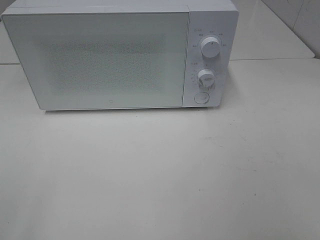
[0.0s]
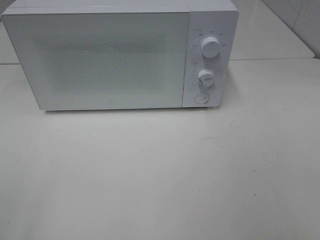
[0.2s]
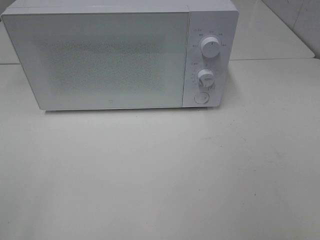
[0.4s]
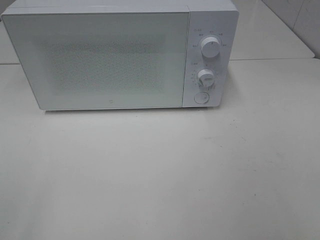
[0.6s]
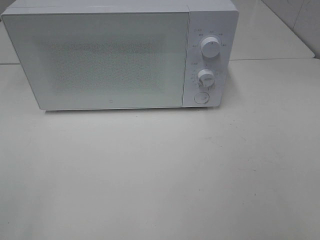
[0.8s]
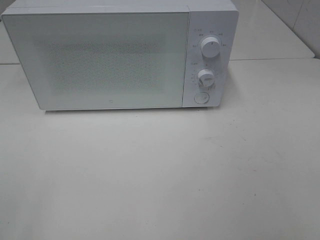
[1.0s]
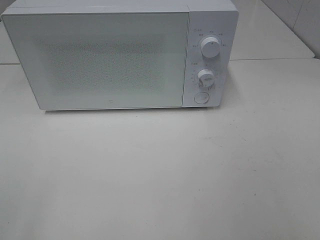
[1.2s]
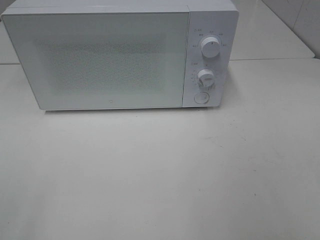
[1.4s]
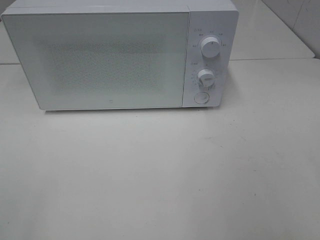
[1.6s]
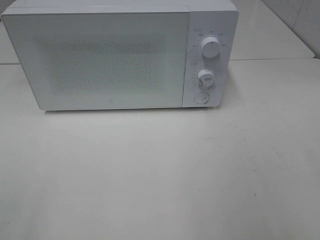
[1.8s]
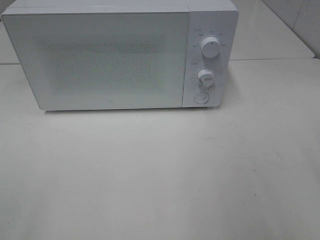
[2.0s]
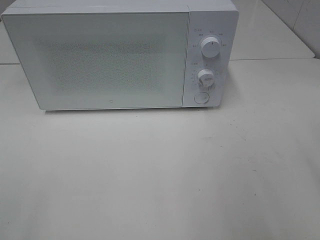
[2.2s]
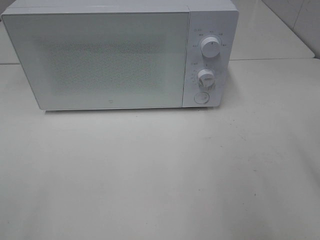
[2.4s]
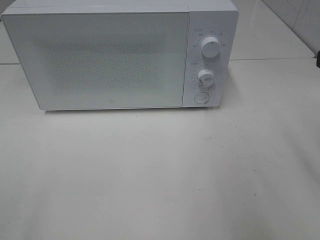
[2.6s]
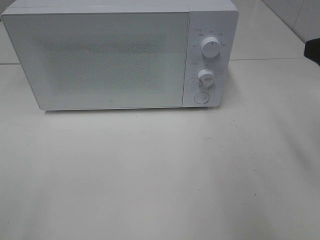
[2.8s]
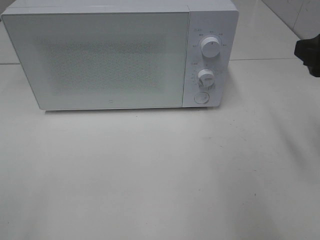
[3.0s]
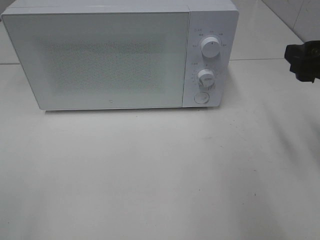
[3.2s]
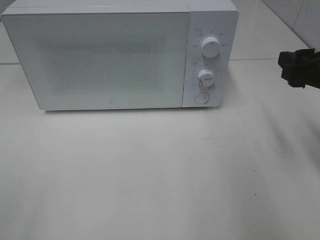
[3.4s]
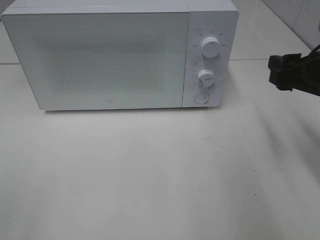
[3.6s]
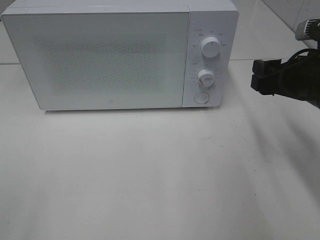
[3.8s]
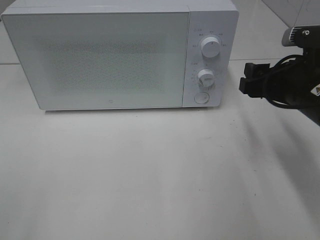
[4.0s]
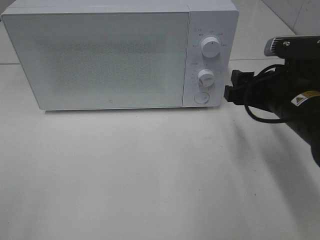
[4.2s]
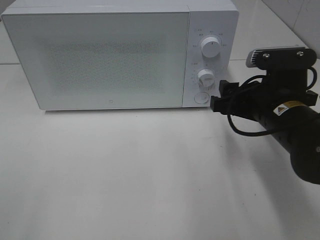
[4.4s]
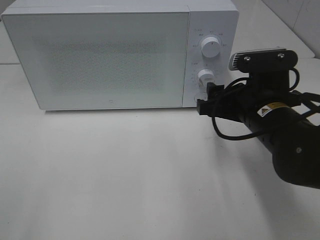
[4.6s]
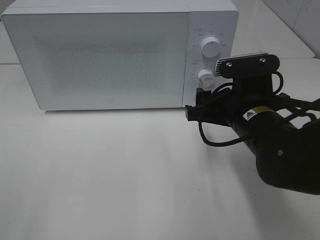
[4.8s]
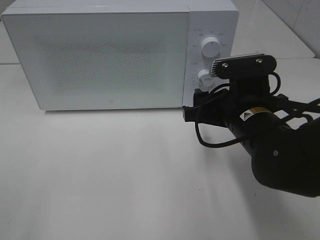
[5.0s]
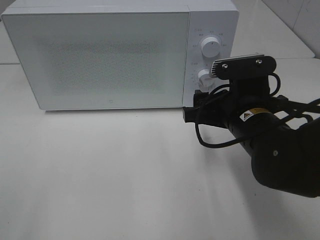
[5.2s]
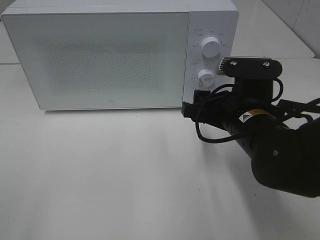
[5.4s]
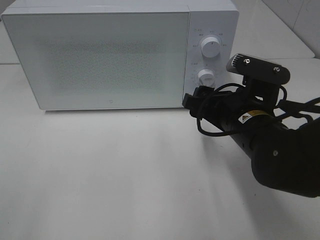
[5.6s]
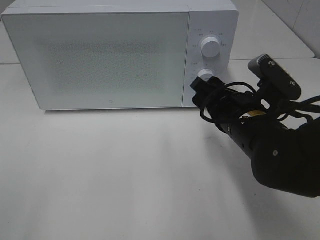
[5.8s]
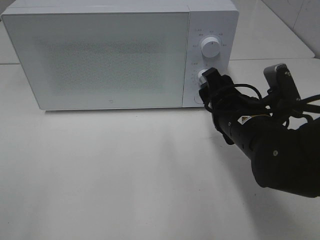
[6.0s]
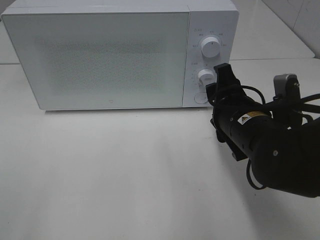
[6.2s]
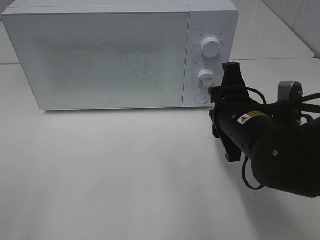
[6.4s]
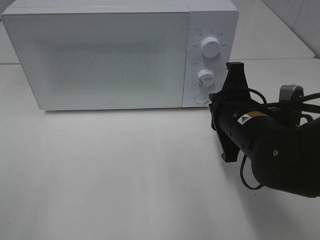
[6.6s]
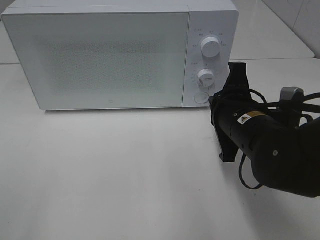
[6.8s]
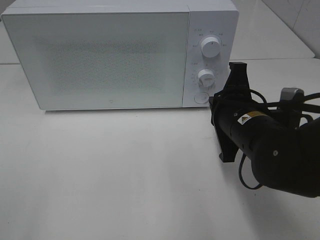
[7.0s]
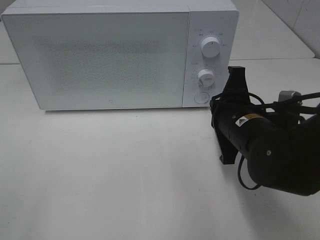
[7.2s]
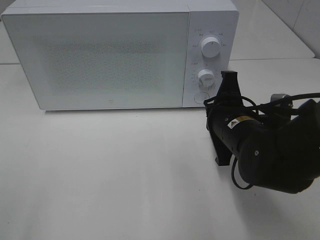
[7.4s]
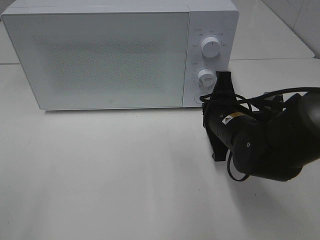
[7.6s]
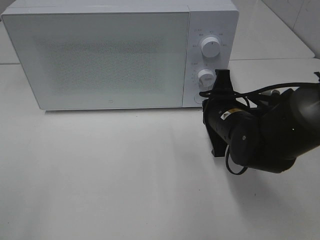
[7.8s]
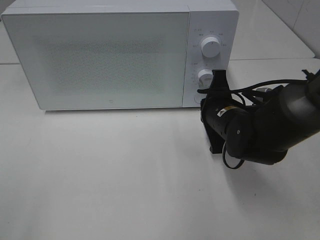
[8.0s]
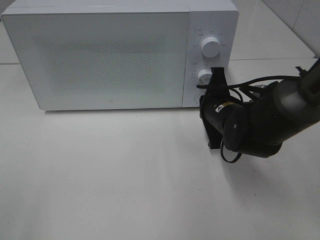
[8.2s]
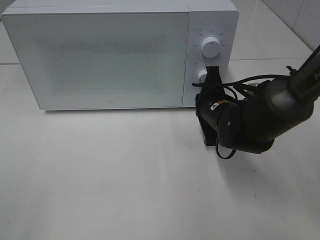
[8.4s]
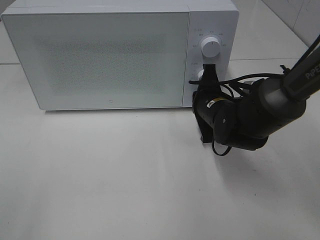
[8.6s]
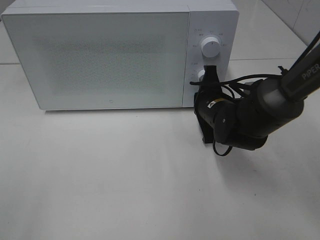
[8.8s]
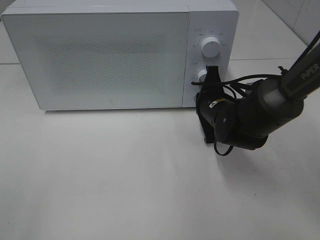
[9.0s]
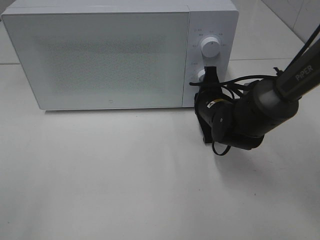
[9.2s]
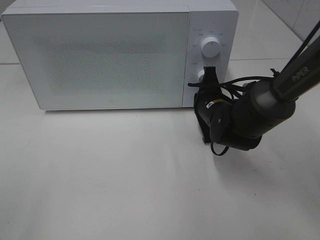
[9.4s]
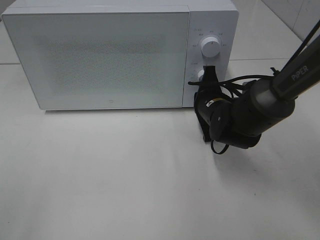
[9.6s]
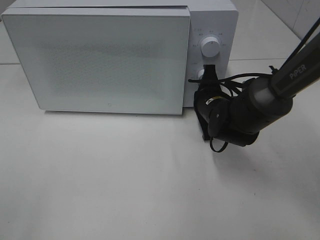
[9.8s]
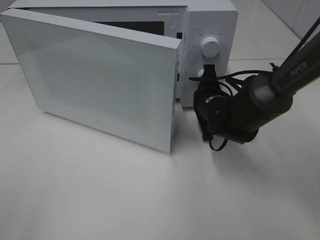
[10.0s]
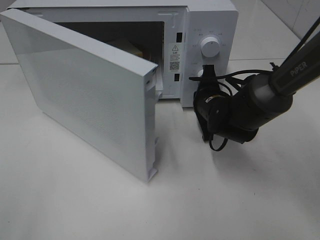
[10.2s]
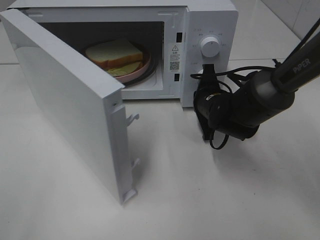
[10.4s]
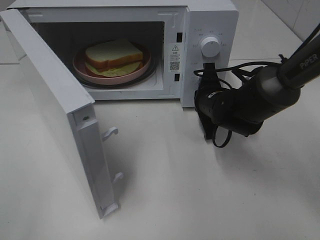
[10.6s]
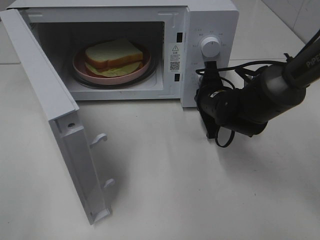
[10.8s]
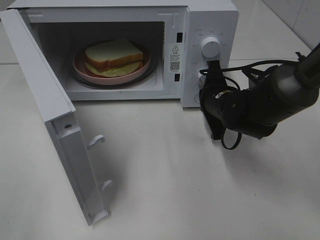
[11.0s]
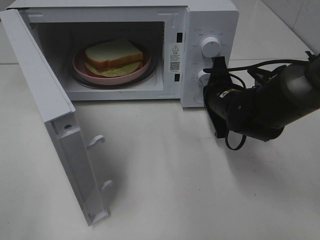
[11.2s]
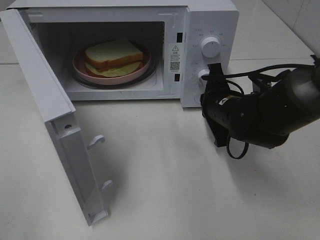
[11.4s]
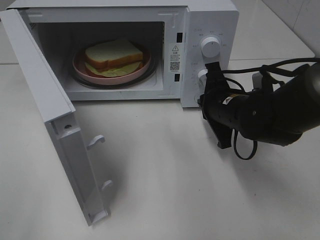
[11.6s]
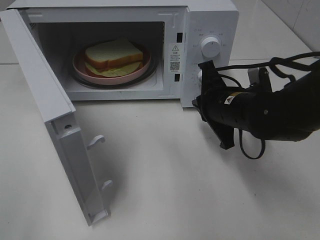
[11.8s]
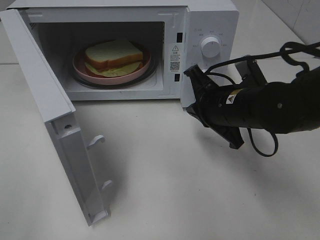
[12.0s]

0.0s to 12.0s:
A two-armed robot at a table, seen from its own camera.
Task of the whole recording: Heat Sandwich.
Step, 0.0s to 11.2s: Right hand: press the switch.
1.6s to 3.0s: The right gripper moves forward, approximately 15 cm.
3.0s to 4.4s: The right gripper goes approximately 15 cm downward and to the left.
6.0s to 7.6s: The right gripper closes.
7.6s to 9.0s: The right gripper heads forward, covering roughly 5 cm.
10.4s to 12.0s: The right gripper goes approximately 10 cm backward and upward.

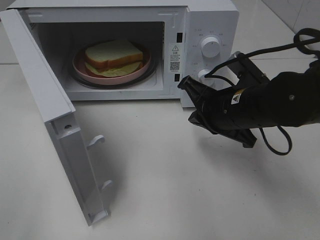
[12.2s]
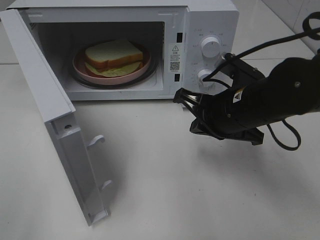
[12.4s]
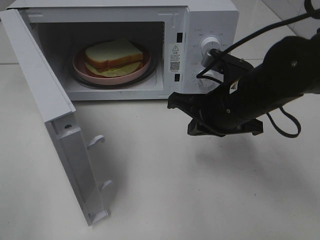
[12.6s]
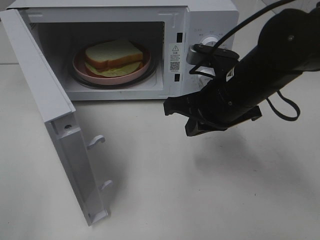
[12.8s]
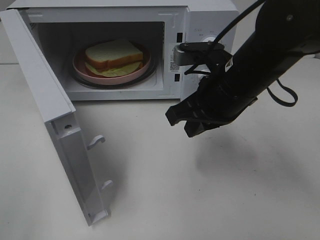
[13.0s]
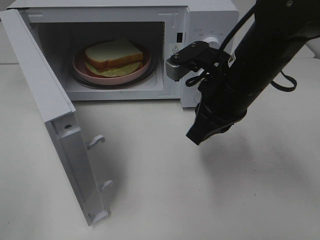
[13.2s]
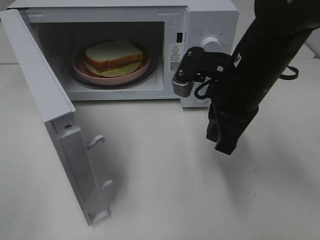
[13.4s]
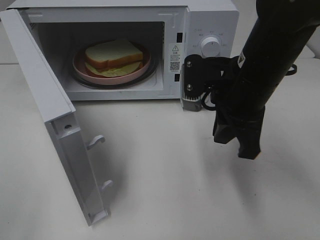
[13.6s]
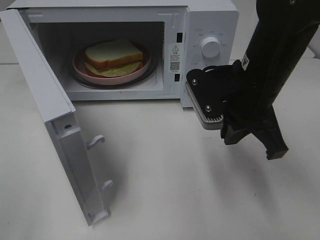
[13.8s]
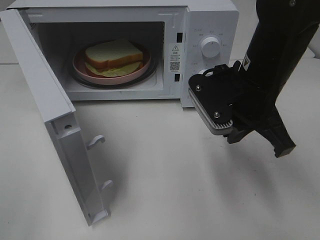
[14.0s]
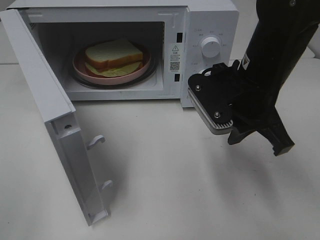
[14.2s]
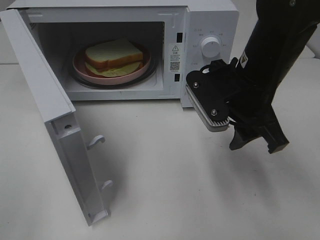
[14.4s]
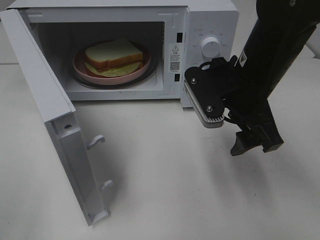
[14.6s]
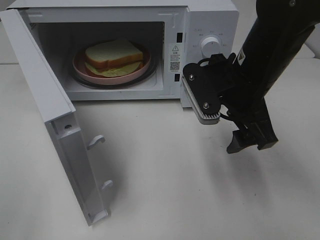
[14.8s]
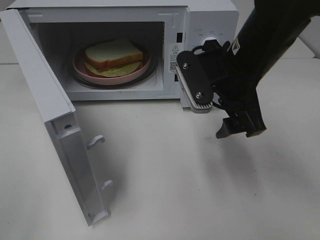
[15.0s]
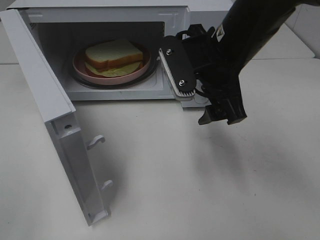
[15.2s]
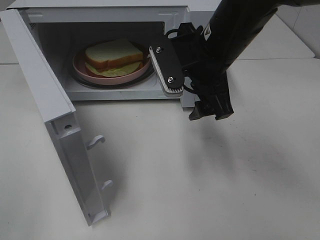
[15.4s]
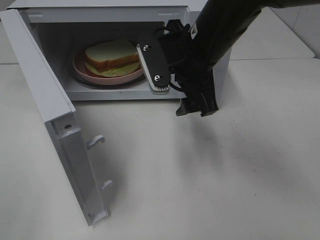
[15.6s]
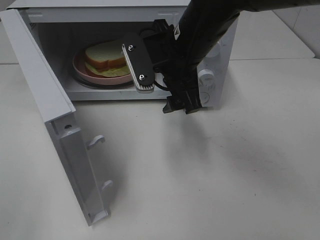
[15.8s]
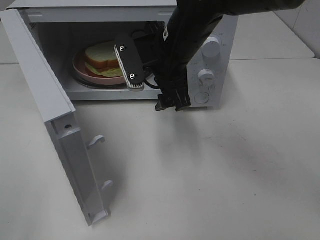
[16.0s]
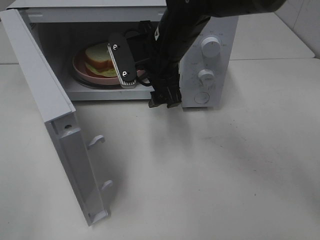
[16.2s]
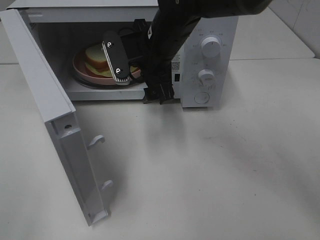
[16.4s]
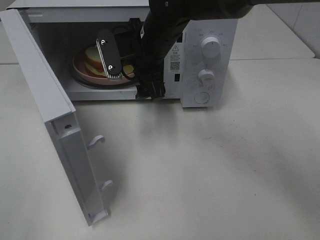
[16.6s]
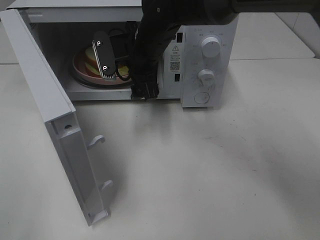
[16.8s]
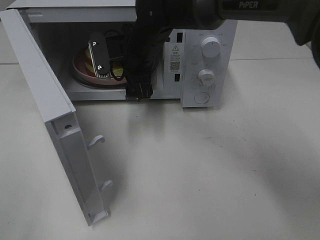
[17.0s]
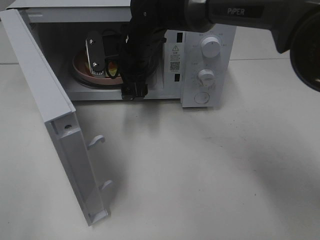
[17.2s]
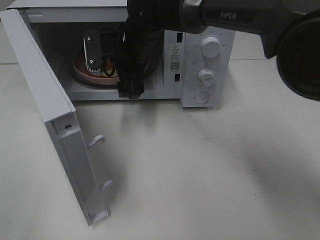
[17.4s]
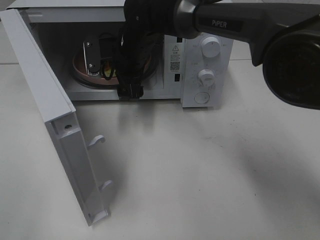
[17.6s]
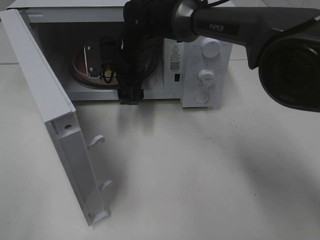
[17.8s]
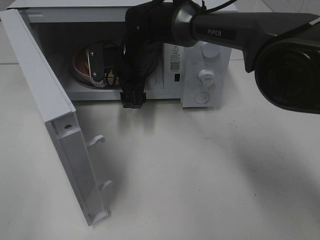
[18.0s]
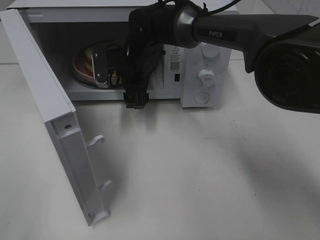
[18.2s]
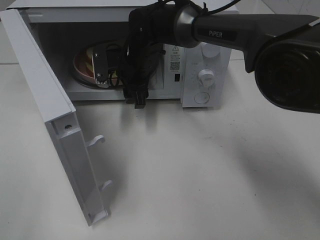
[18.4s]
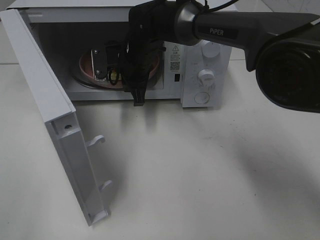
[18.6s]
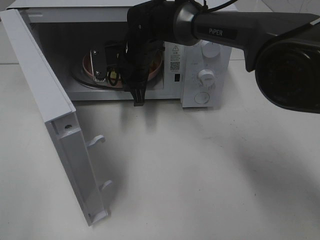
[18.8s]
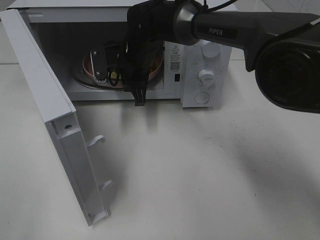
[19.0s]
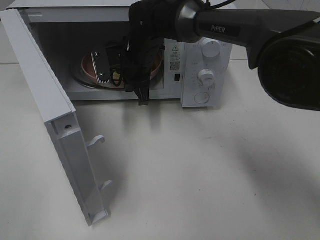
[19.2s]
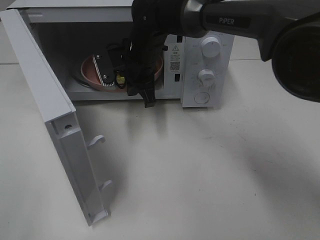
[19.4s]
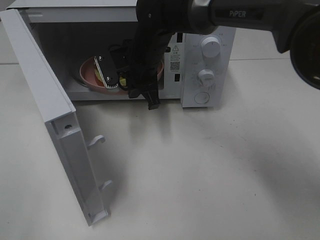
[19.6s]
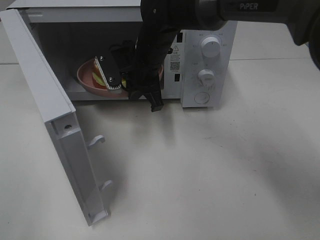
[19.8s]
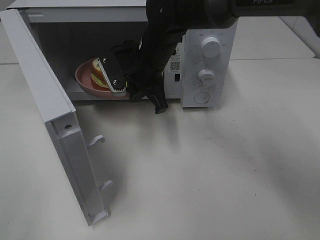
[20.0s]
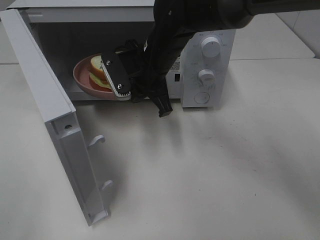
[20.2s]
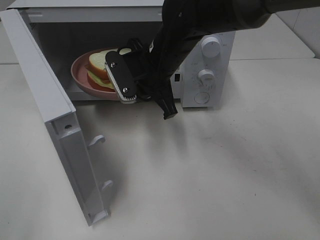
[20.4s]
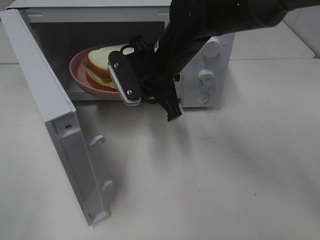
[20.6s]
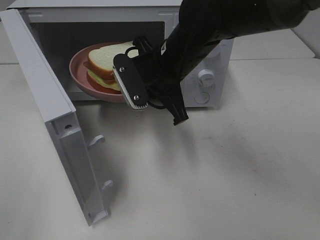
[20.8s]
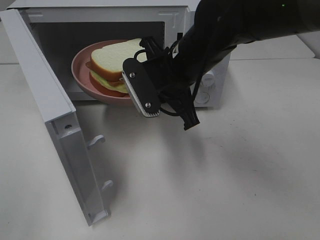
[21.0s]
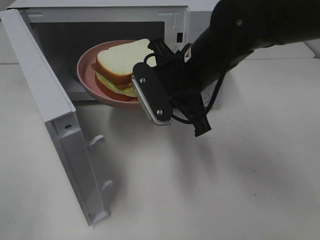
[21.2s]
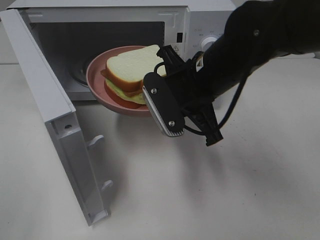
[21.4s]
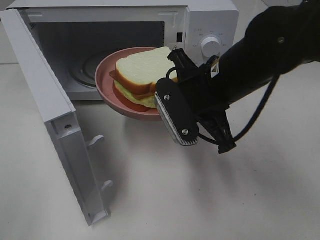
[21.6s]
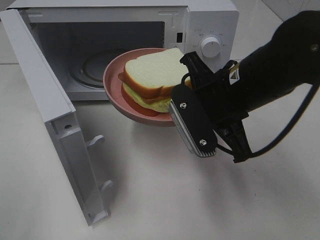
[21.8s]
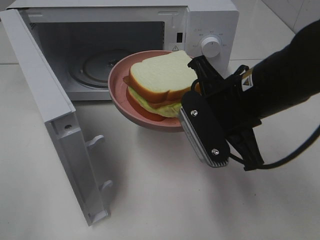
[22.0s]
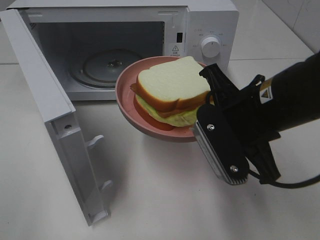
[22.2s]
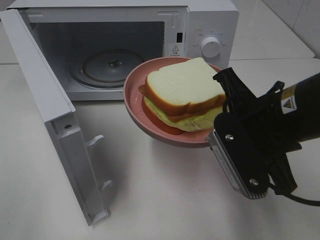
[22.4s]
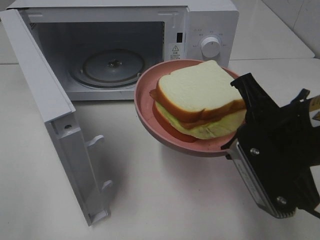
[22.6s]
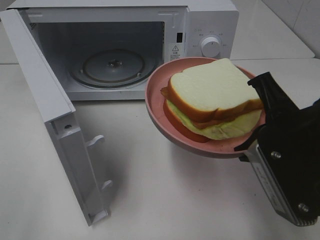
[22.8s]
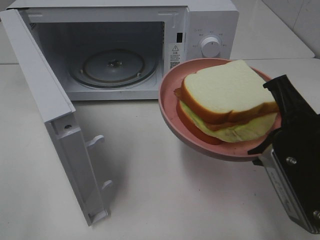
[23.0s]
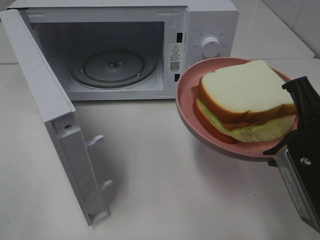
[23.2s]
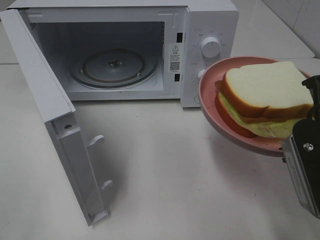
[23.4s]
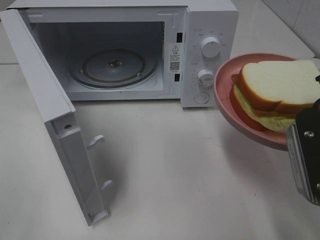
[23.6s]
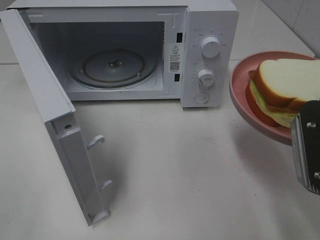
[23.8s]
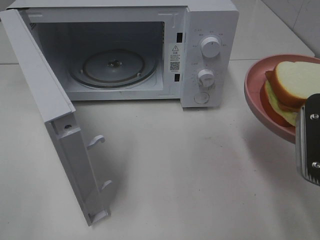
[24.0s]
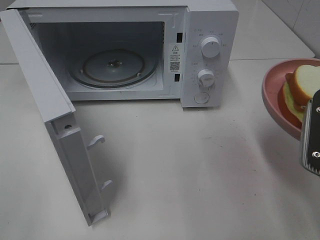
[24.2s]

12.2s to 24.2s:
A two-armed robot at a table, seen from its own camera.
Task of the whole recording: Heat Sandwich.
Step, 12.2s to 19.0s: Right hand: grab the plate with the sandwich.
12.2s to 13.8s: The right gripper goes some 5 cm upward.
13.8s to 15.2s: The right gripper shifts by about 5 cm, and opens up.
15.2s to 16.6s: The right gripper heads forward and to the left, covering about 15 cm.
16.6s to 18.2s: The right gripper goes approximately 10 cm downward and forward.
18.2s to 19.8s: The right gripper shifts by roughly 5 cm, and closes its fingers.
19.8s to 21.2s: The right gripper goes about 15 cm backward and to the right.
21.2s to 22.6s: The right gripper shifts approximately 15 cm backward and to the right.
22.6s to 24.2s: The right gripper shifts about 5 cm to the right.
